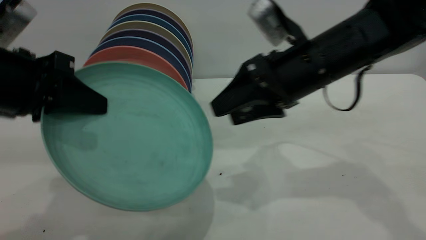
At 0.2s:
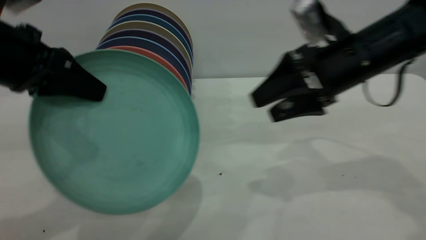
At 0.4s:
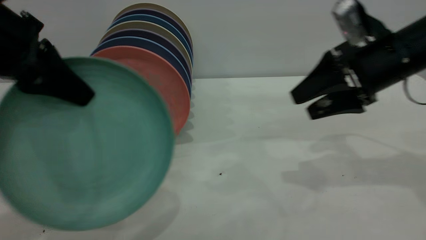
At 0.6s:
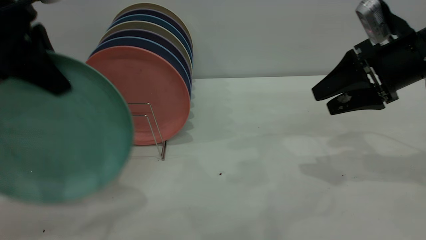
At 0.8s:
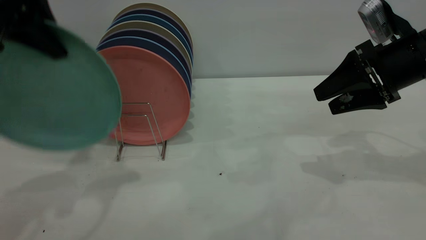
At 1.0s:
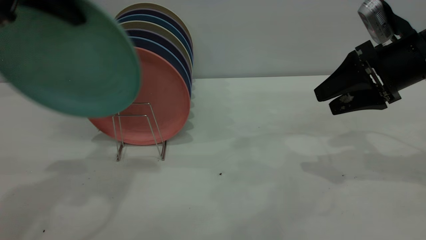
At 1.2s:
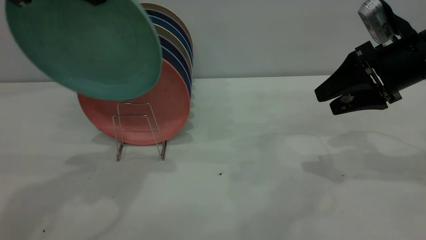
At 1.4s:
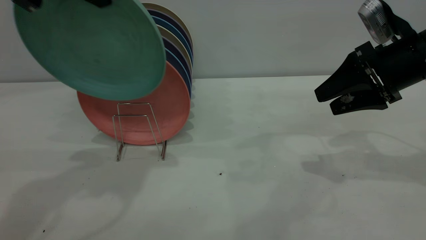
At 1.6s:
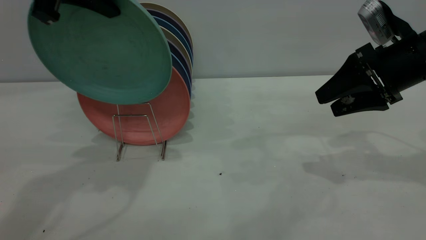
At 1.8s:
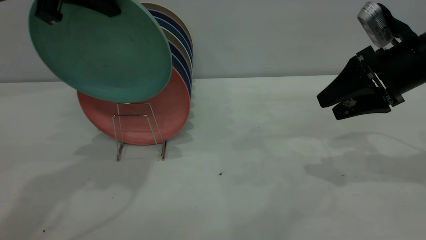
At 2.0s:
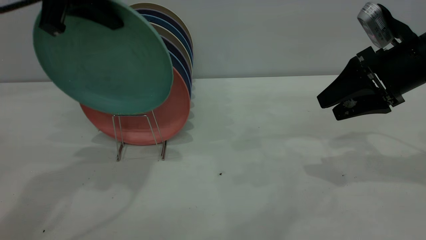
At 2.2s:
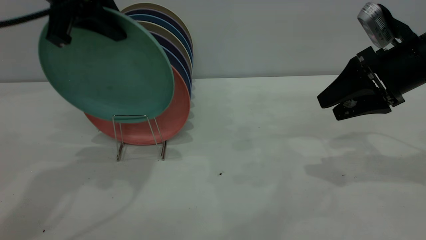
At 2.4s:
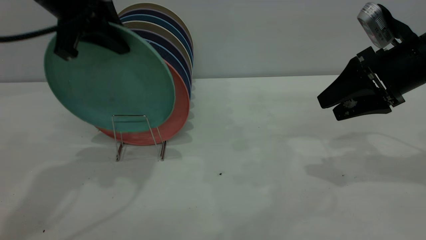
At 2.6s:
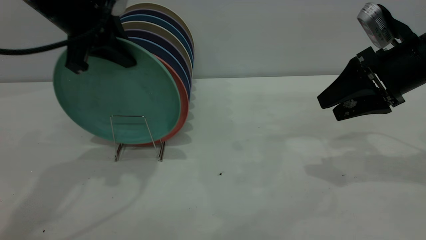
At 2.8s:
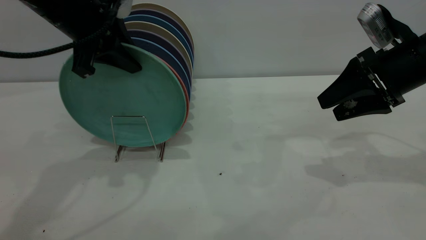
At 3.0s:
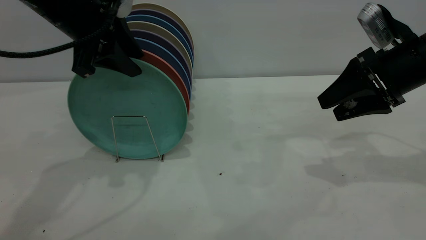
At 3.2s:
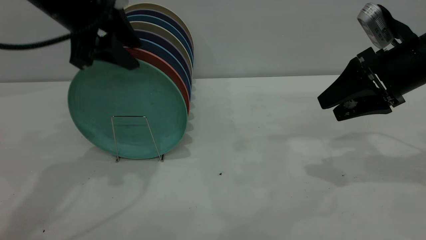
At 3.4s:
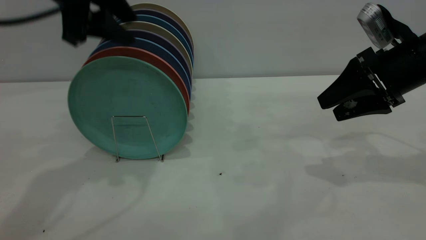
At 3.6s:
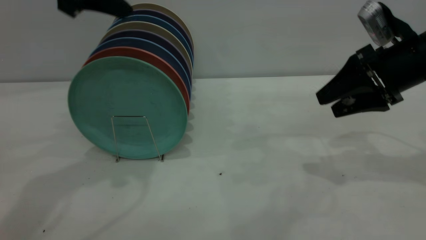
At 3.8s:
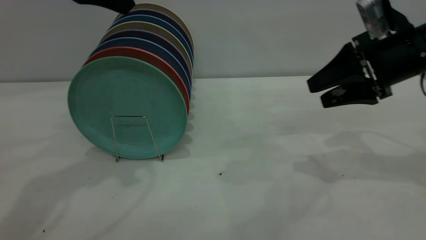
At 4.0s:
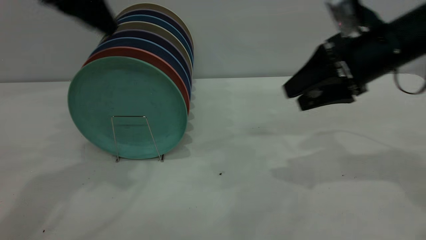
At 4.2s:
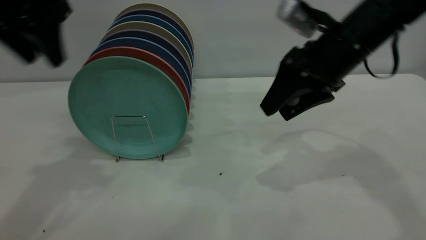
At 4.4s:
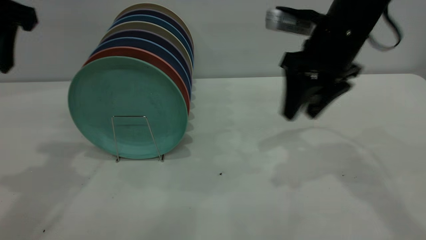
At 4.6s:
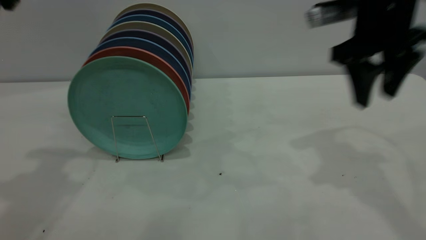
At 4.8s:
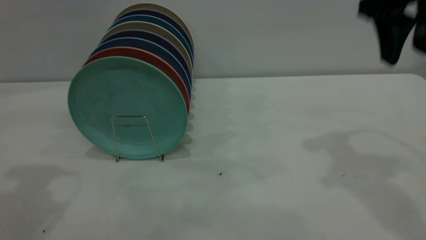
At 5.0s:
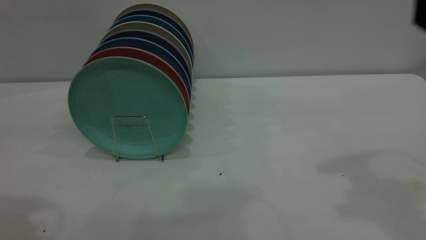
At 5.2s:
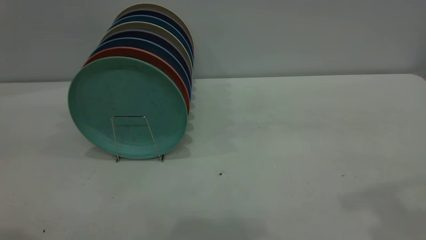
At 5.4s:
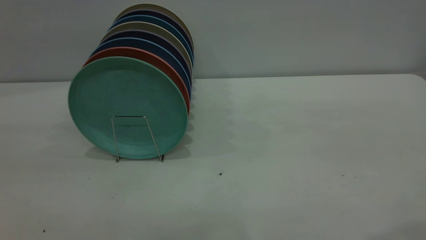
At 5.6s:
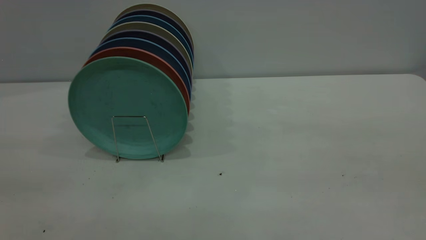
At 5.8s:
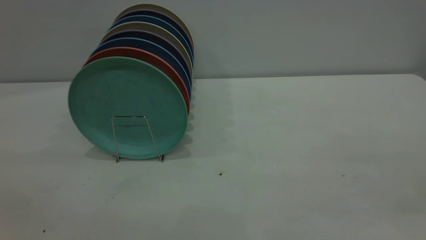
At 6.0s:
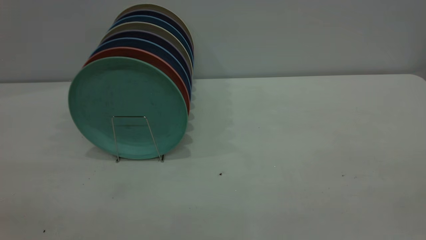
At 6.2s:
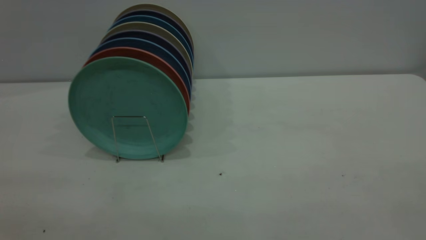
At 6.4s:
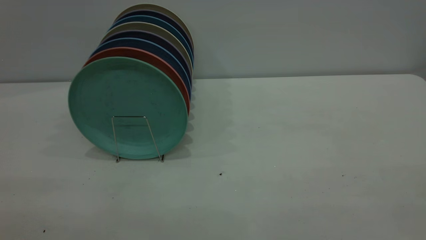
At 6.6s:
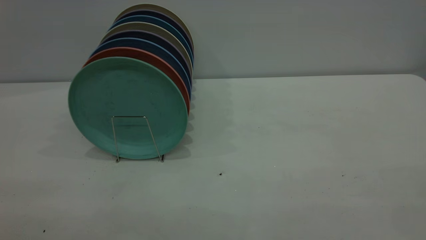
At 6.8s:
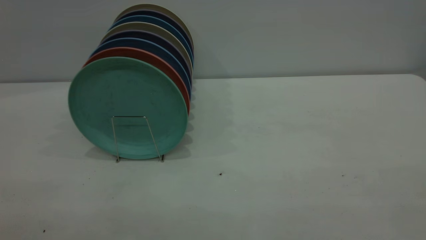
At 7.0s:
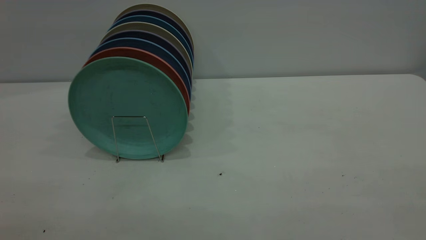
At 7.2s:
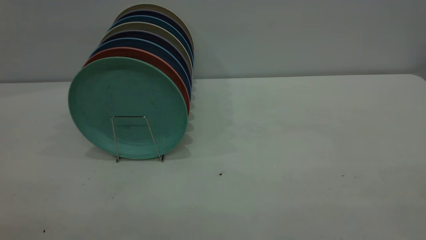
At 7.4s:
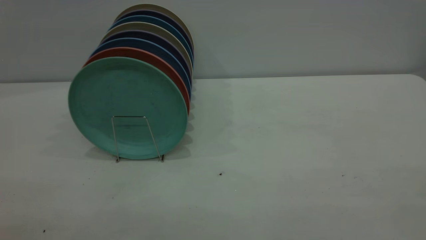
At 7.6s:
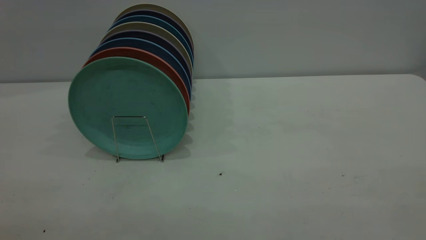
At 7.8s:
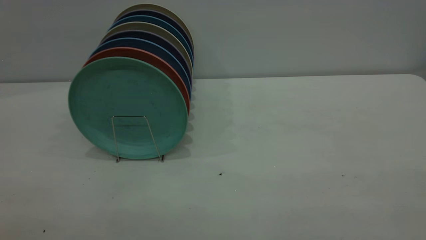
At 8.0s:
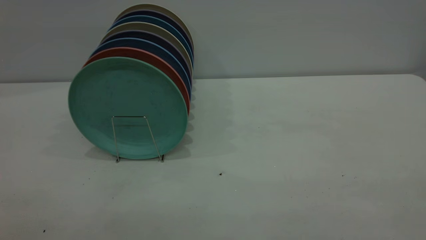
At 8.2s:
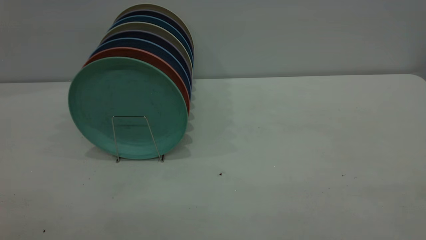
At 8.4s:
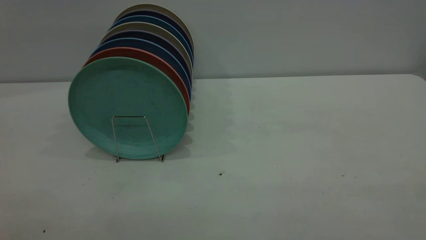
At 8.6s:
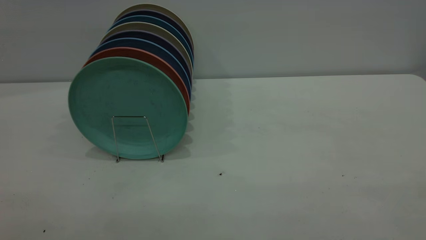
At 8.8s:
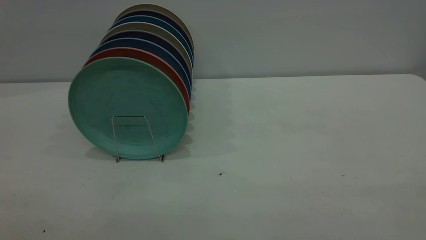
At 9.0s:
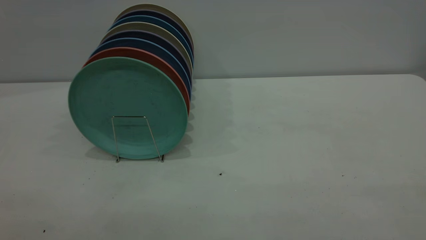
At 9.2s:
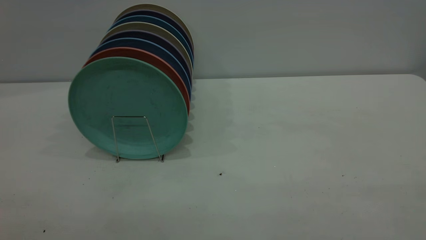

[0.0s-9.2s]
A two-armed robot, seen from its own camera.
Task of the whole recording: the right gripper grasp the green plate, the right gripper pass the green plate to the left gripper, and the left gripper place the green plate on the plate rack.
Step, 0.2s to 3.2s: Place the plate on the shelf.
0.0s to 1.6s: The left gripper is displaced upward and forward by roughly 15 cm; the right gripper heads to the right, covering about 15 cm.
1.6s to 3.0s: The left gripper moves downward, some 10 cm, and opens up.
3.0s to 4.6s: The left gripper heads upward, backward and to the left, covering roughly 15 cm. Meanwhile the right gripper travels upward and to the left by roughly 10 cm.
4.6s to 6.2s: The right gripper shifts some 35 cm backward.

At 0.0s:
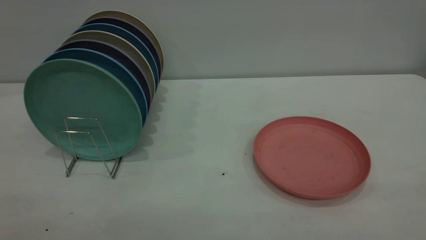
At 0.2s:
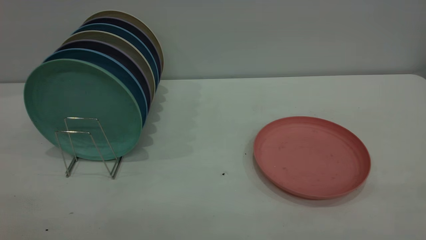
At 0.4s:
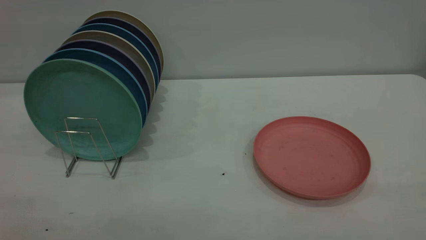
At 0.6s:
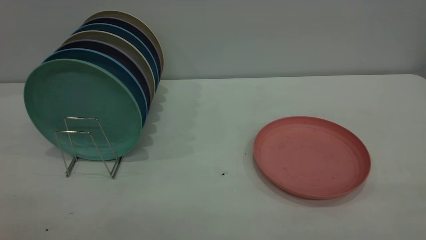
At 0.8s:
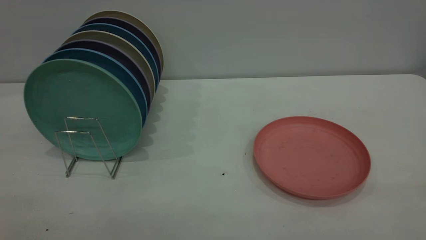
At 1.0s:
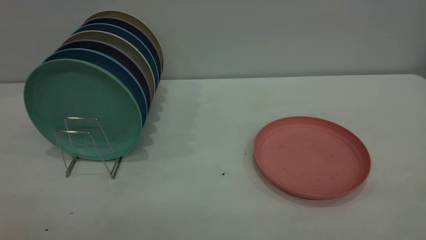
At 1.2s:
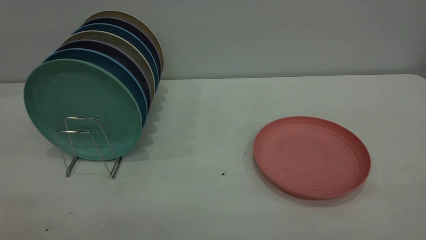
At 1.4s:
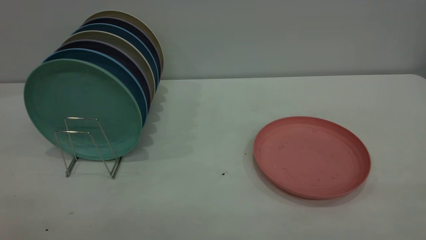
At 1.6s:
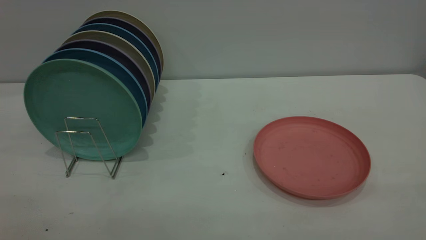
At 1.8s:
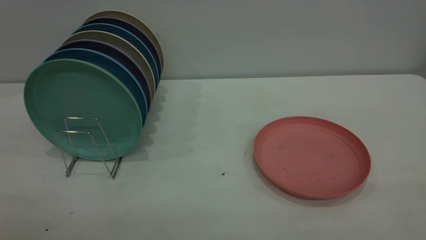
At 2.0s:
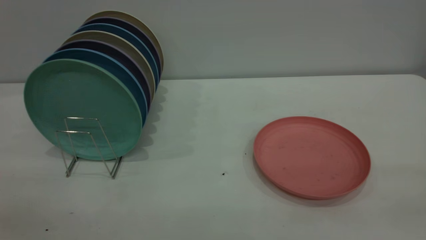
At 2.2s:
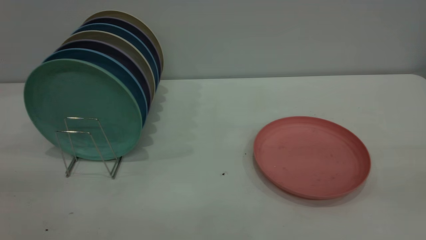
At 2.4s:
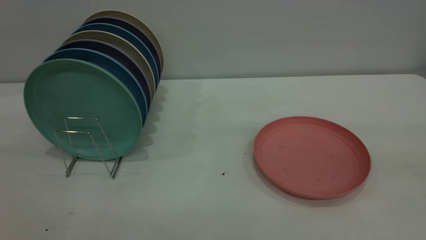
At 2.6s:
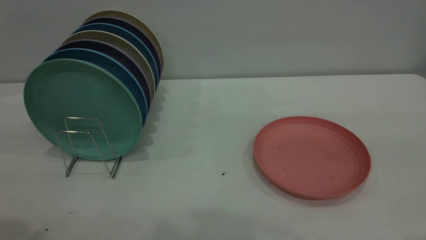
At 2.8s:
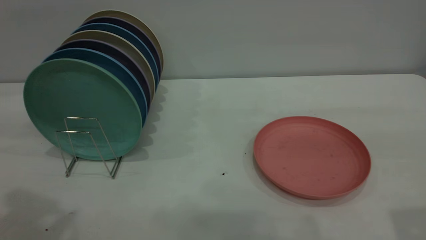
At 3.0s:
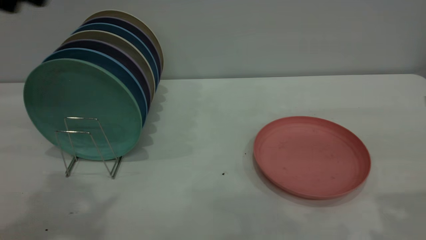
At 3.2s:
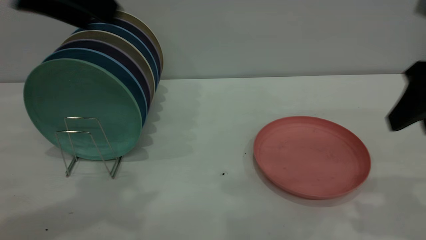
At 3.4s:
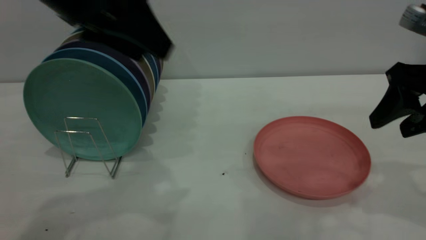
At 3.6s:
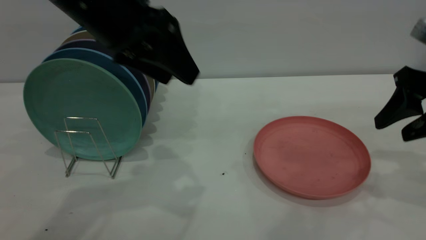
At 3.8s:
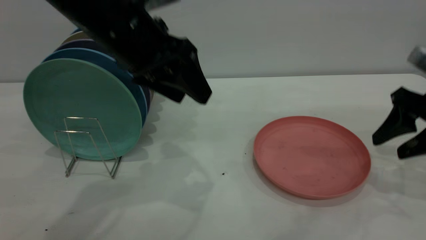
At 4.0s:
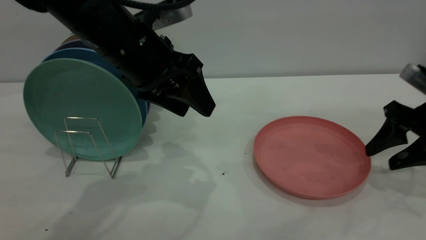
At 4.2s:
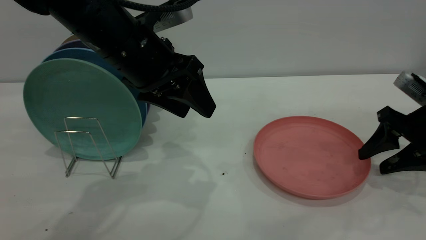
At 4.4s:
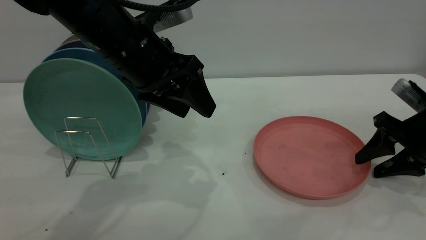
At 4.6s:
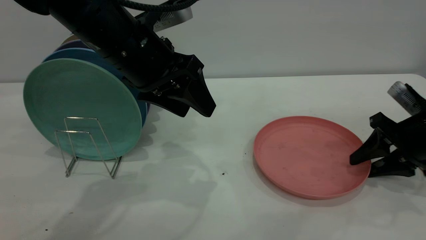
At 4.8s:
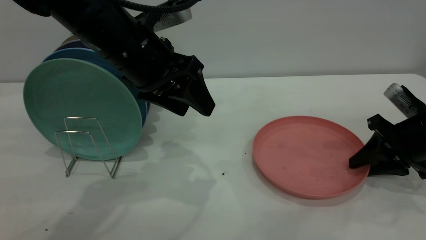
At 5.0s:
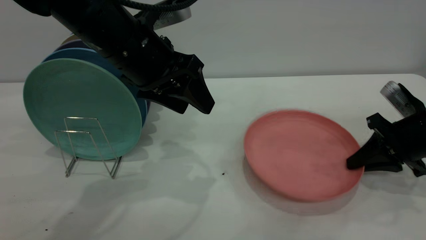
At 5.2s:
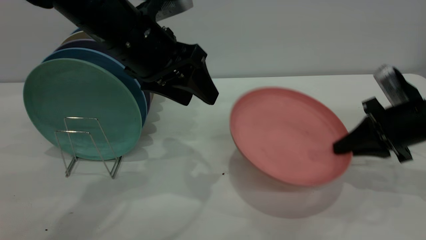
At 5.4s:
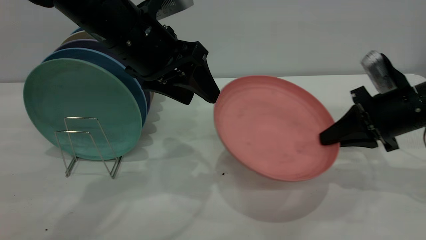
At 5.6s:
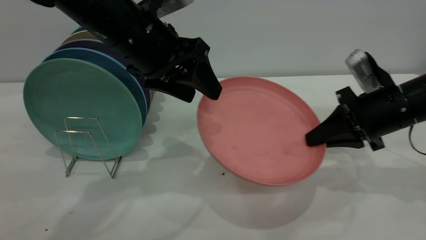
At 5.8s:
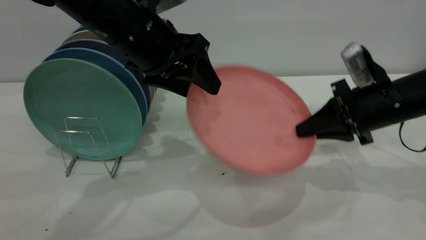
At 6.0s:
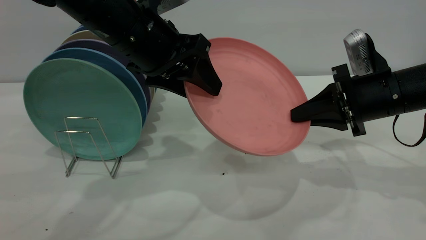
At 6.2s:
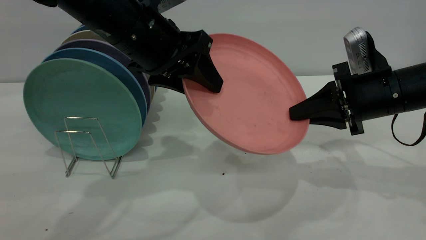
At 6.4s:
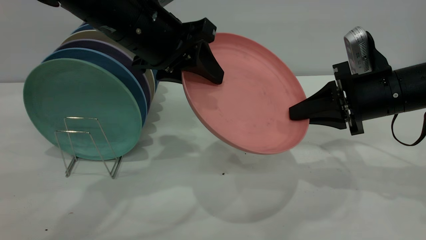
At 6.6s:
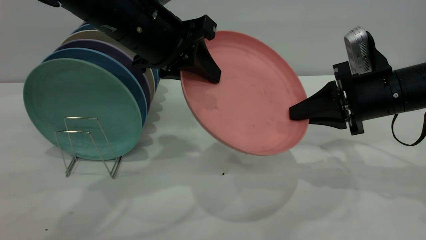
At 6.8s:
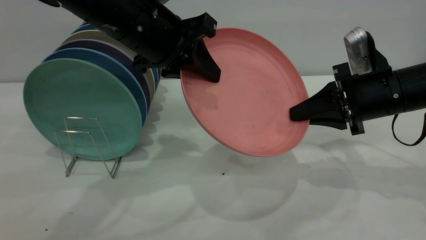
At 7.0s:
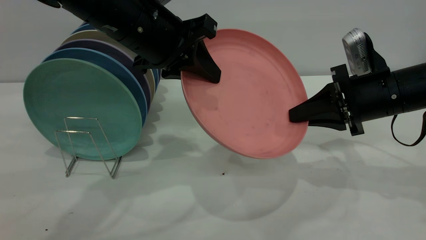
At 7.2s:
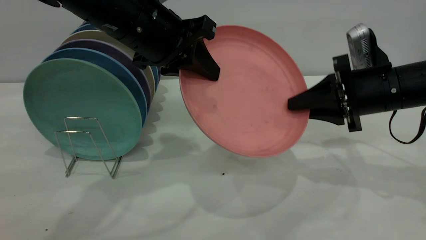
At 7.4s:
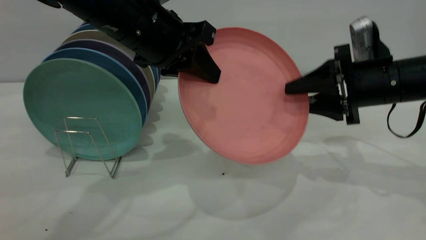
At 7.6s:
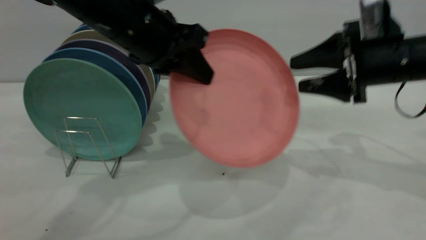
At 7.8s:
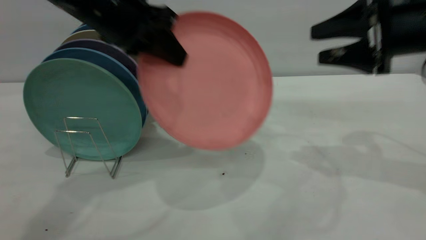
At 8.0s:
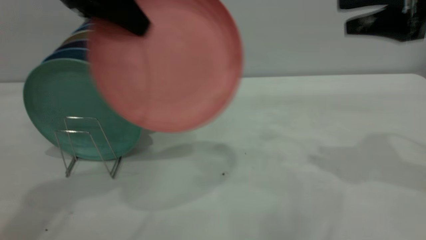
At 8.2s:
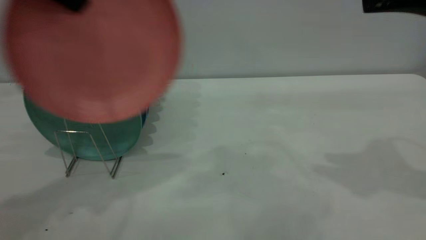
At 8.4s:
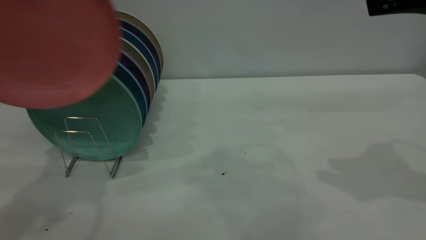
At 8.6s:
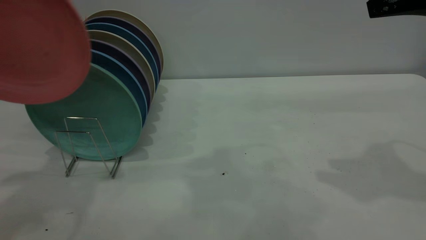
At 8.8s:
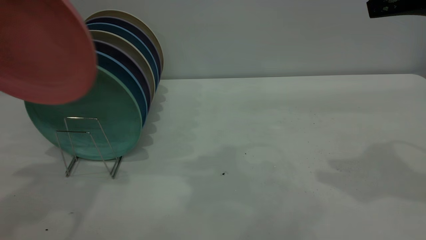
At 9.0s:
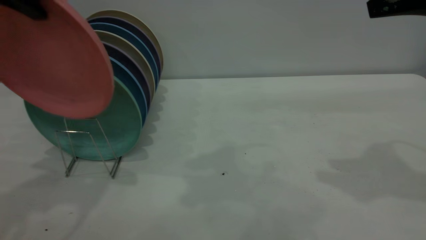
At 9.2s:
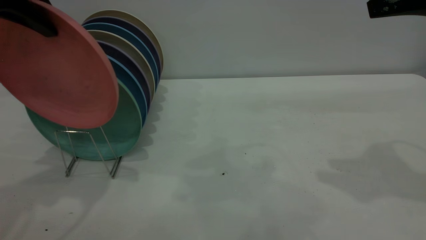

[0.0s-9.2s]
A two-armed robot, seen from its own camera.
Task of the whole recording: the right gripper grasp the pink plate, the right gripper pass the pink plate to the left gripper, and the left gripper place the pink plate on the plate rack.
Step, 0.0s to 5.0s: Pick up the plate with the right gripper.
Step, 5.4s to 7.8s: Pass the plate from the right gripper to the left gripper.
0.0s to 1.6s: Both grippers stay about where they are.
3.0s to 4.6s: The right gripper is displaced downward and forward by approximately 25 cm. Meanwhile the left gripper moves downward, to the right and forward, about 20 cm.
4.6s to 6.2s: The right gripper is displaced to the left and upward by some 10 cm, and closes its fingers.
6.2s to 7.6s: The left gripper closes up. Meanwhile the right gripper goes some 5 cm upward, and opens its fingers.
7.6s to 9.2s: The left gripper shifts about 15 cm to the left and upward. Meanwhile the right gripper moves upward, roughly 15 cm.
